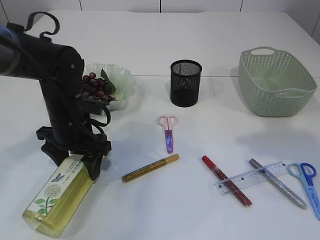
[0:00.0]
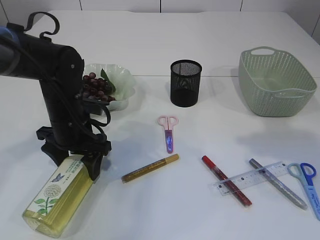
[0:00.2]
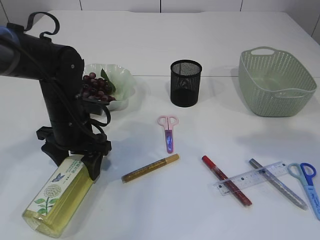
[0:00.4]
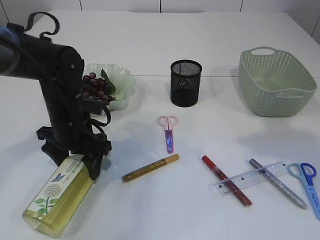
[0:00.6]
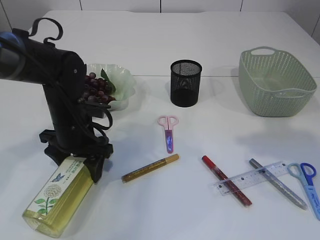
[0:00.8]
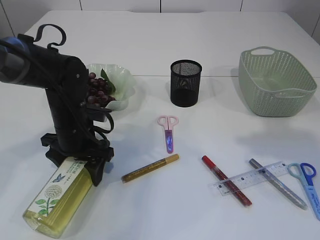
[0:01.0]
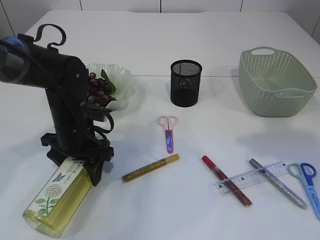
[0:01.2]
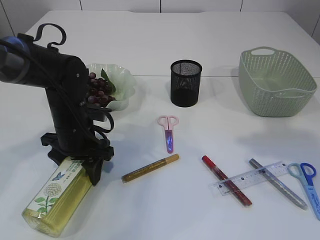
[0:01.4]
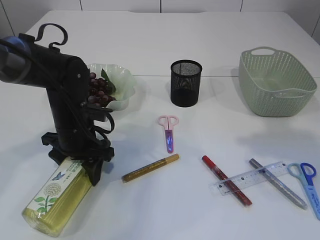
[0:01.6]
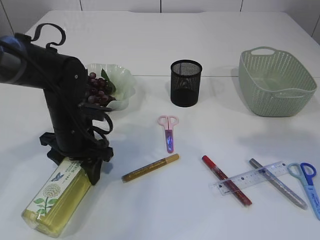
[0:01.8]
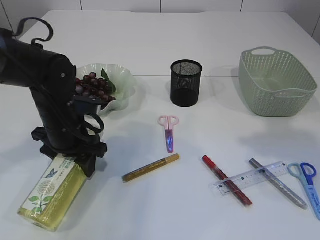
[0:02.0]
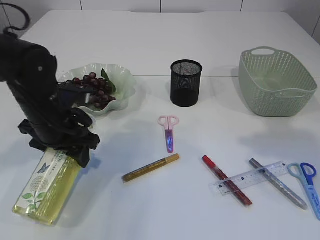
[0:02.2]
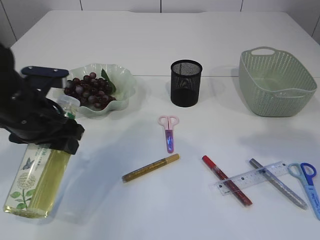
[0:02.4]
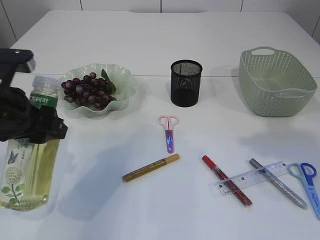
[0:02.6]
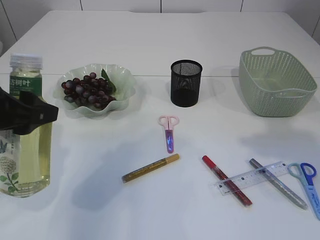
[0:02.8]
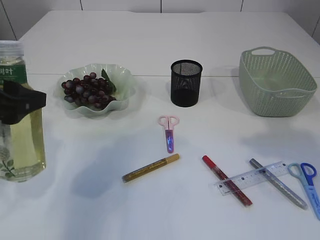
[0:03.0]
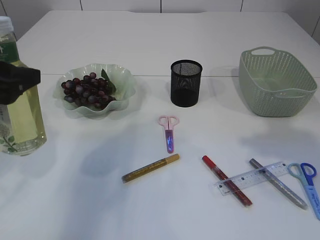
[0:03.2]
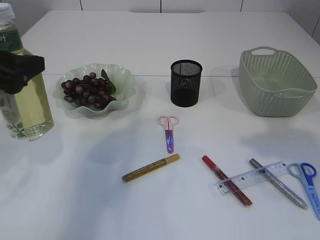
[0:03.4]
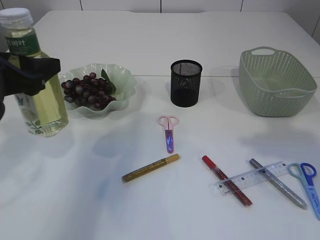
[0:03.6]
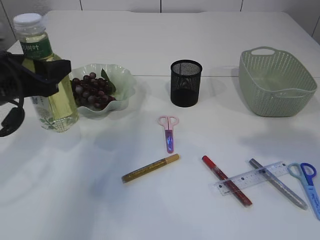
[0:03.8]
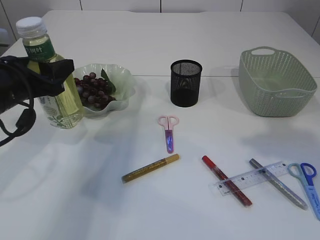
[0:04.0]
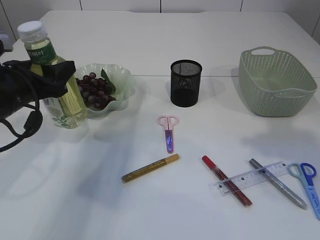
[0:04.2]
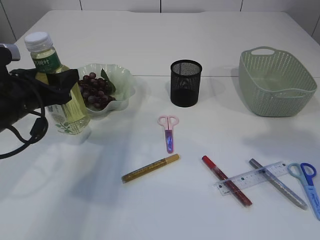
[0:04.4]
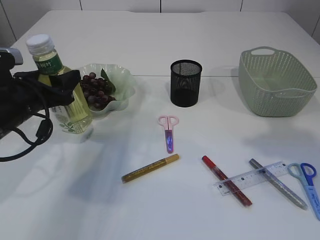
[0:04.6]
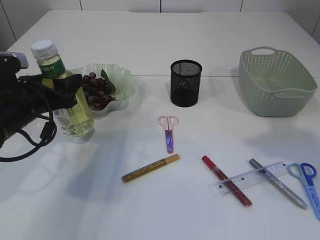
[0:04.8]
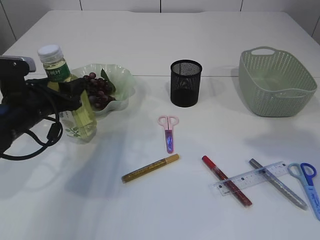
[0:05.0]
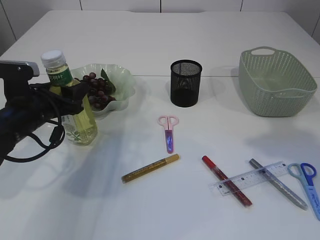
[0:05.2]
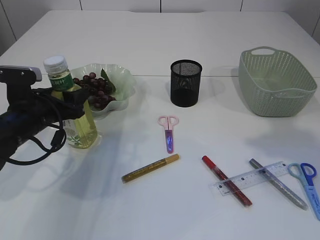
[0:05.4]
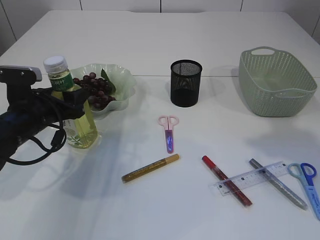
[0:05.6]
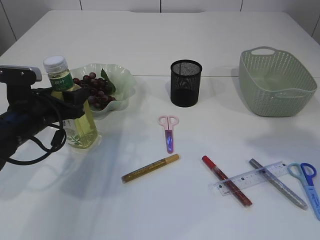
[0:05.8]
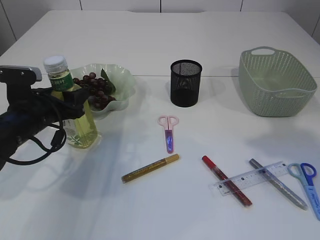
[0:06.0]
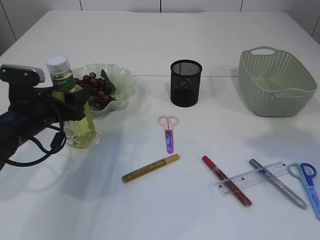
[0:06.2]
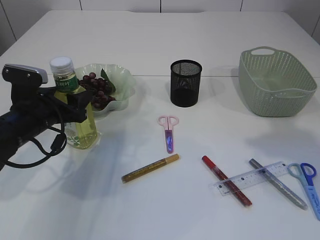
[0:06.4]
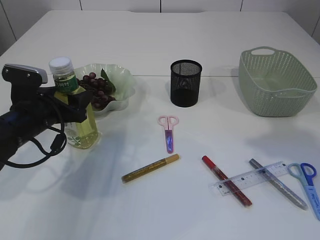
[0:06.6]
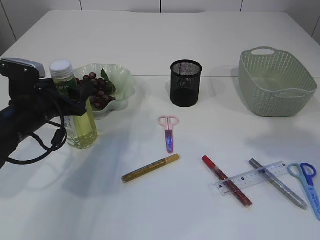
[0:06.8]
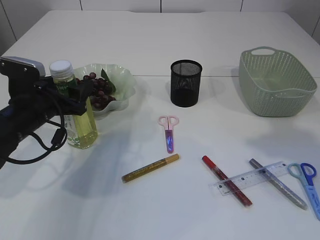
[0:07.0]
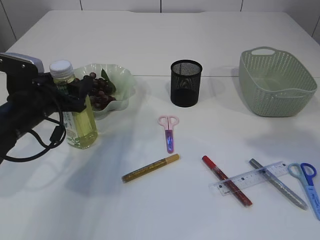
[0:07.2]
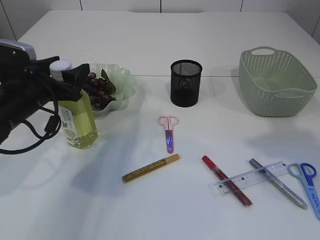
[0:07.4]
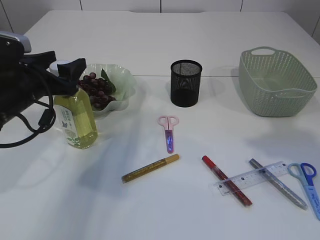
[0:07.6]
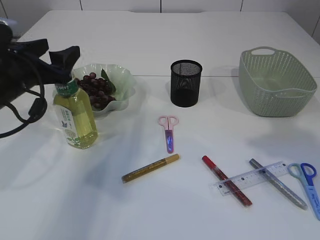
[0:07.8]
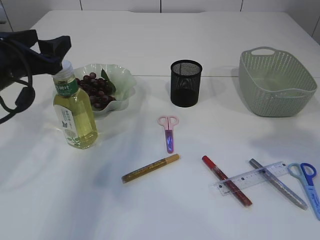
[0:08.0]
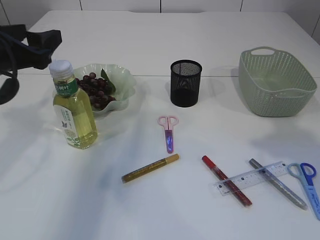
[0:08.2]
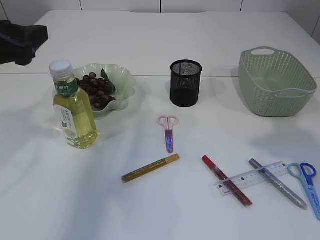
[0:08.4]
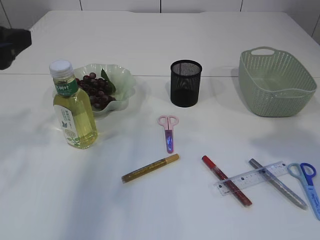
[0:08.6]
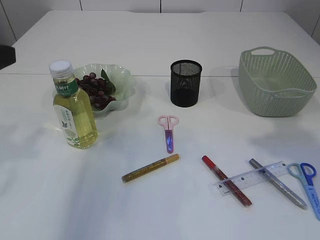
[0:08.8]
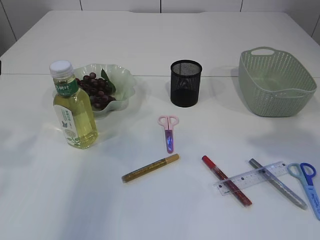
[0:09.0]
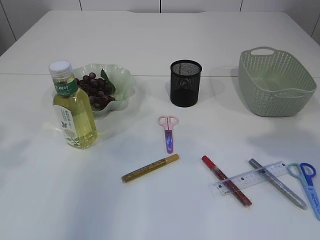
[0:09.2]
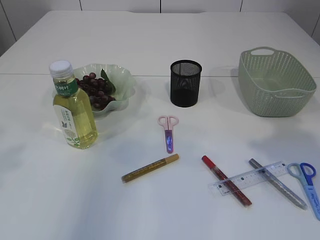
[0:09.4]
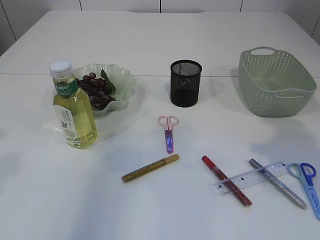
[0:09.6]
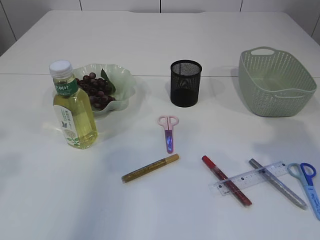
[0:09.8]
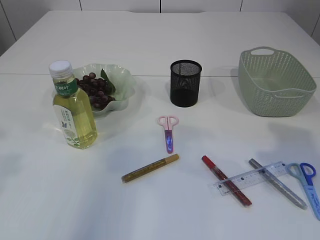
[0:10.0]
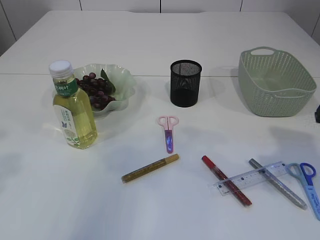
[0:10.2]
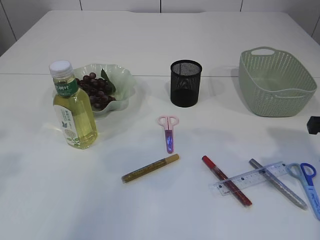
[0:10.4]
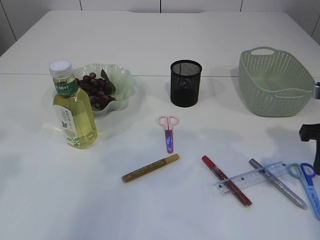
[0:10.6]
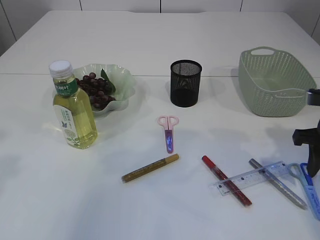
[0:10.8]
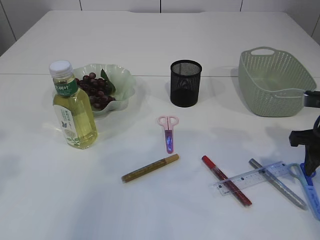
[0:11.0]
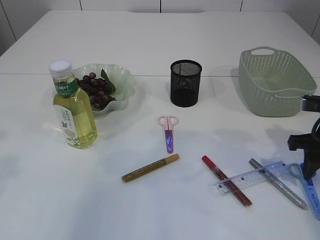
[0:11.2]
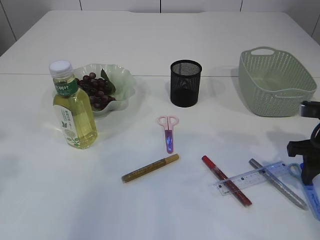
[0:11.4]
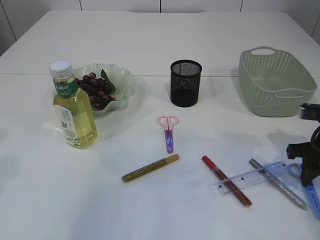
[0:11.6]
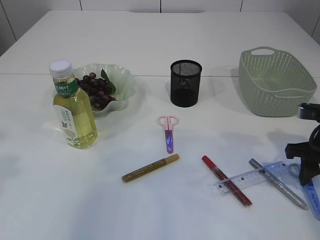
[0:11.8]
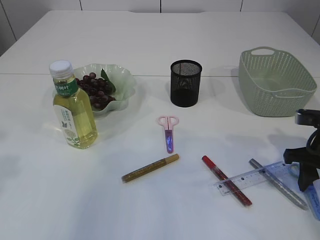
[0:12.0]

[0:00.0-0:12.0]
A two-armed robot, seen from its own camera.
Step, 0:00.0 to 0:02.6: Pick up the bottle with the left arm.
Step, 0:02.8 to 0:08.0: Place the bottle.
0:00.0 to 0:01.6: The grippers make only small movements.
0:01.6 to 0:03.0: The left gripper goes approximately 20 cm upward, backward and to the left.
0:03.0 to 0:04.4: The left gripper is displaced forward and downward by approximately 10 cm.
0:04.4 to 0:06.0: The left gripper goes roughly 5 cm downward.
0:06.0 to 0:07.6: The left gripper travels upward by roughly 5 cm.
0:07.6 to 0:09.0: The left gripper moves upward and backward, roughly 20 cm.
0:09.0 to 0:10.4: The right gripper heads downward, covering about 10 cm.
0:10.4 to 0:12.0: The right gripper is displaced downward by approximately 10 cm.

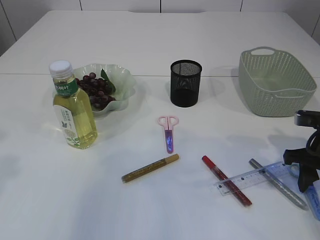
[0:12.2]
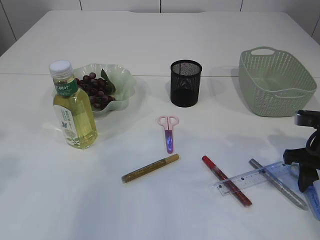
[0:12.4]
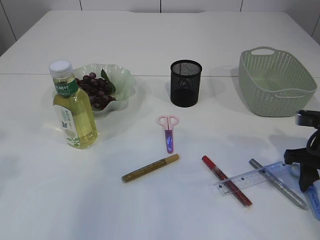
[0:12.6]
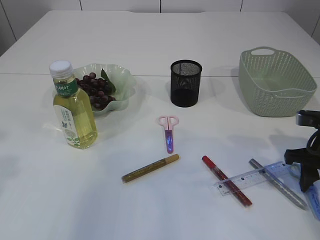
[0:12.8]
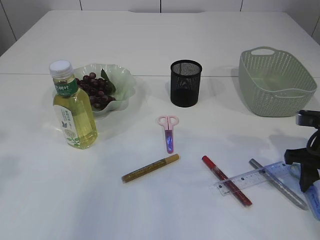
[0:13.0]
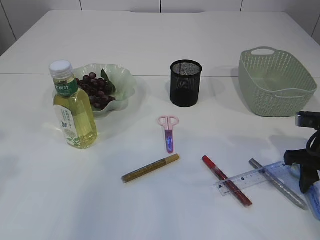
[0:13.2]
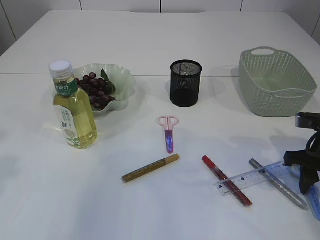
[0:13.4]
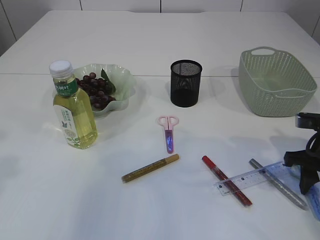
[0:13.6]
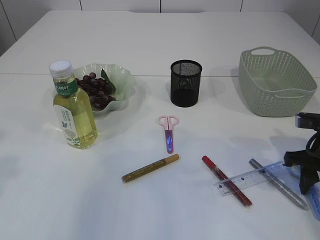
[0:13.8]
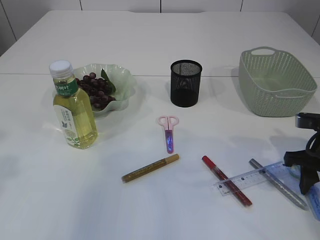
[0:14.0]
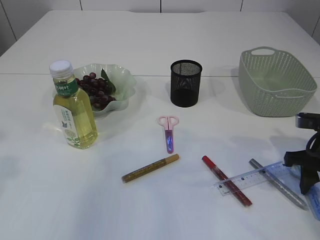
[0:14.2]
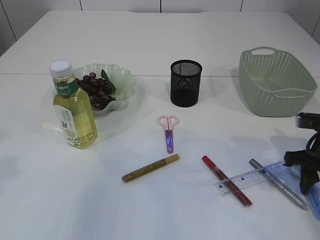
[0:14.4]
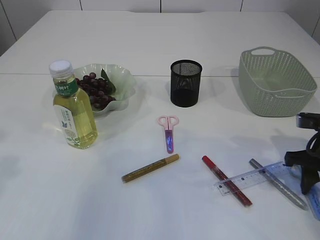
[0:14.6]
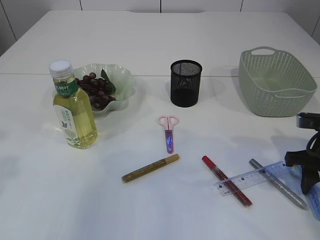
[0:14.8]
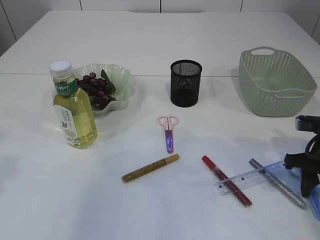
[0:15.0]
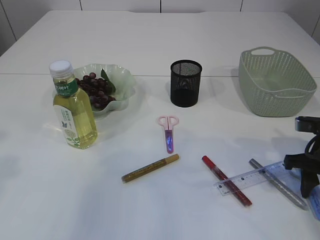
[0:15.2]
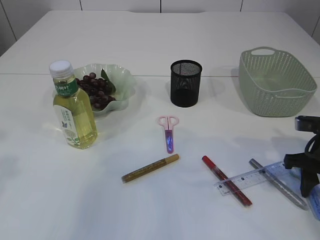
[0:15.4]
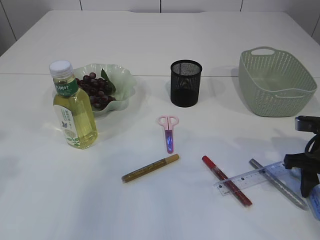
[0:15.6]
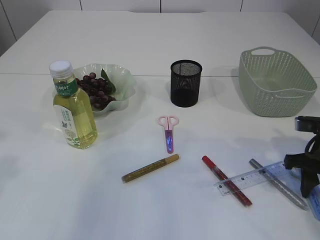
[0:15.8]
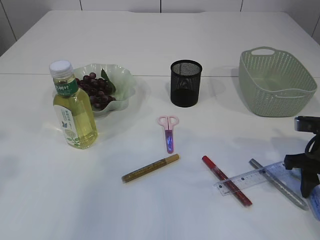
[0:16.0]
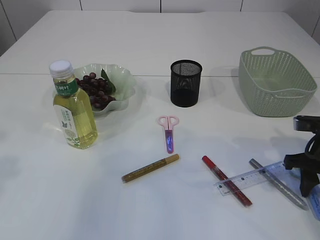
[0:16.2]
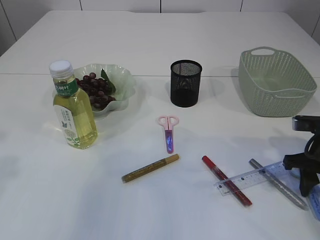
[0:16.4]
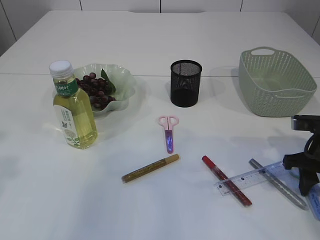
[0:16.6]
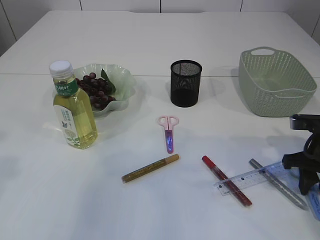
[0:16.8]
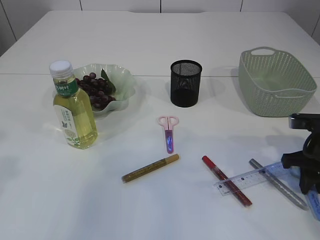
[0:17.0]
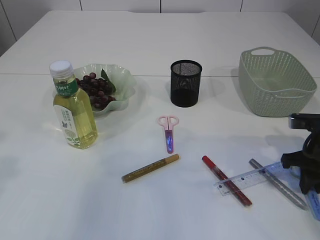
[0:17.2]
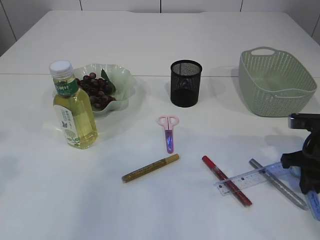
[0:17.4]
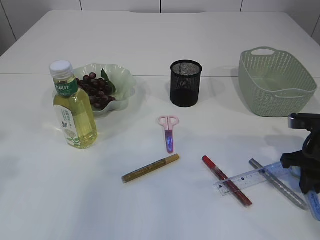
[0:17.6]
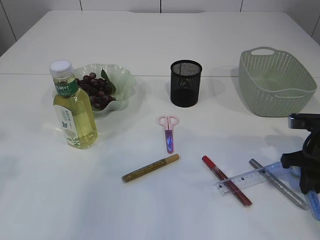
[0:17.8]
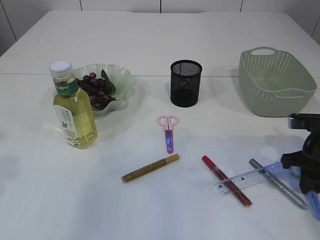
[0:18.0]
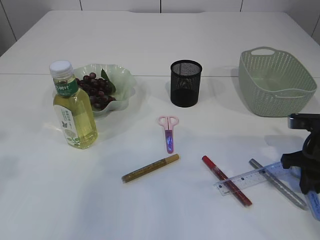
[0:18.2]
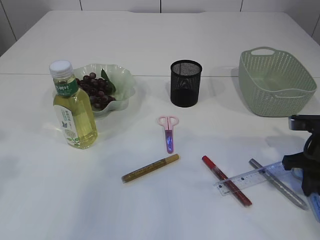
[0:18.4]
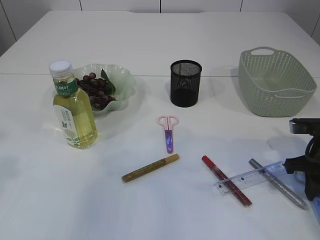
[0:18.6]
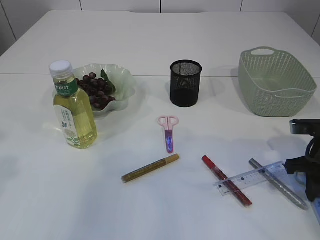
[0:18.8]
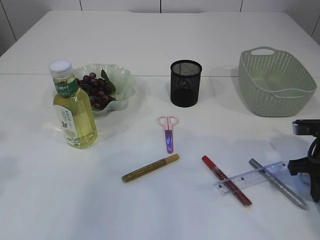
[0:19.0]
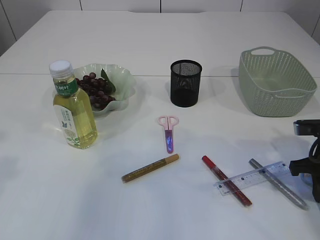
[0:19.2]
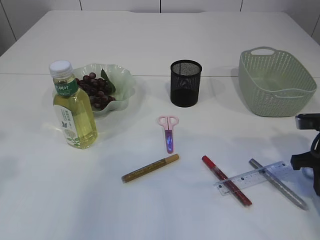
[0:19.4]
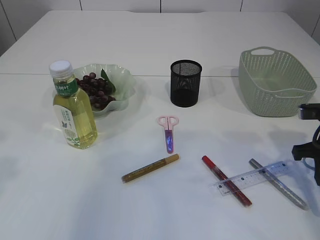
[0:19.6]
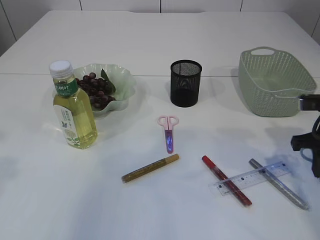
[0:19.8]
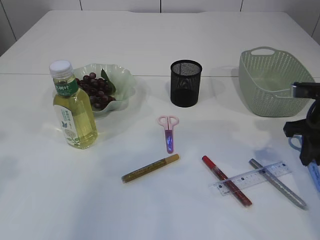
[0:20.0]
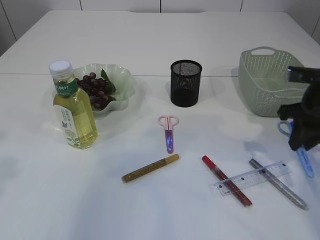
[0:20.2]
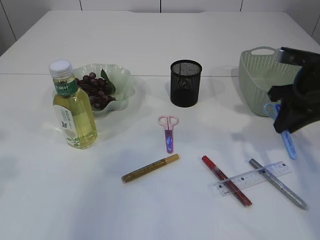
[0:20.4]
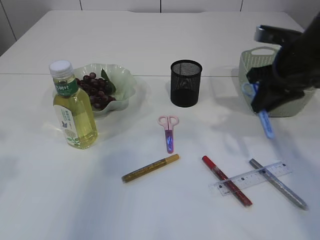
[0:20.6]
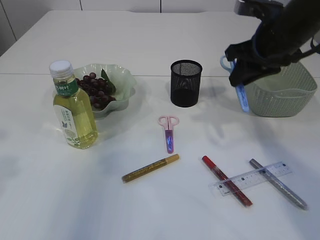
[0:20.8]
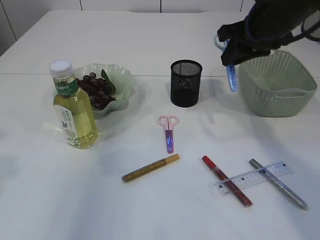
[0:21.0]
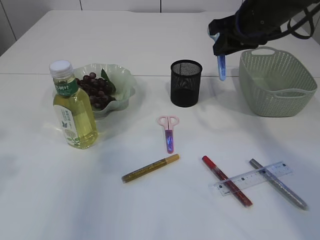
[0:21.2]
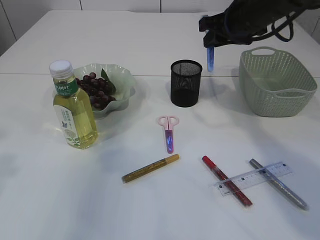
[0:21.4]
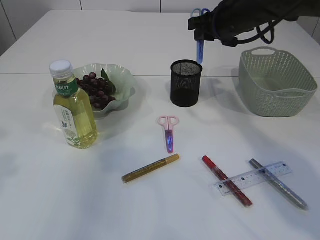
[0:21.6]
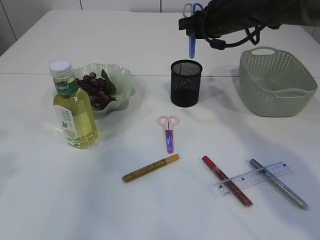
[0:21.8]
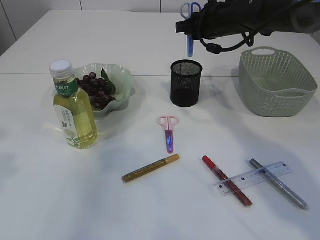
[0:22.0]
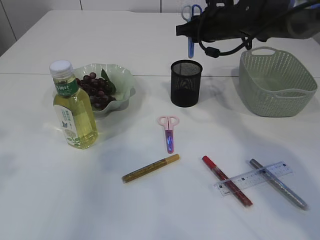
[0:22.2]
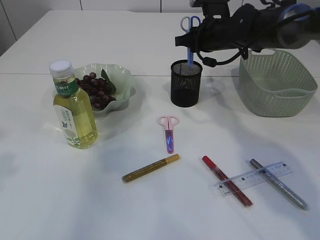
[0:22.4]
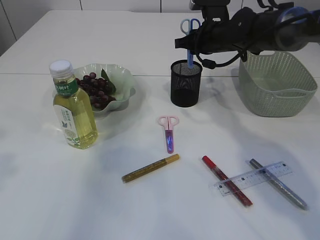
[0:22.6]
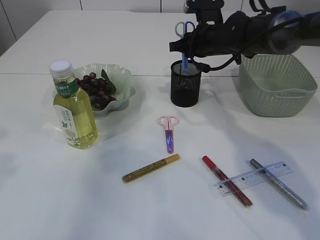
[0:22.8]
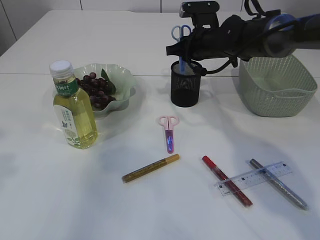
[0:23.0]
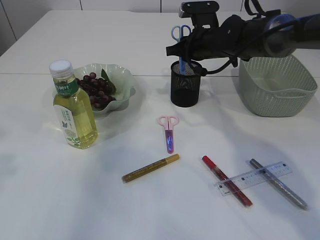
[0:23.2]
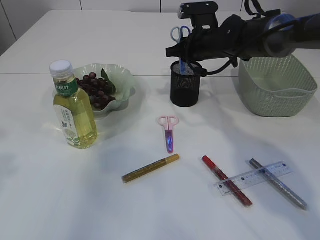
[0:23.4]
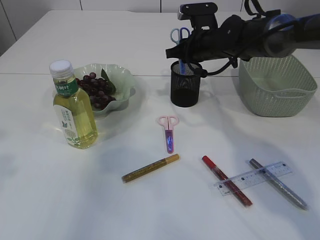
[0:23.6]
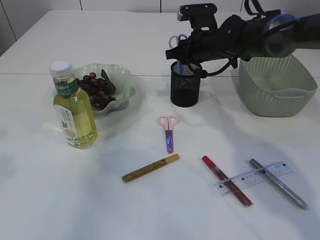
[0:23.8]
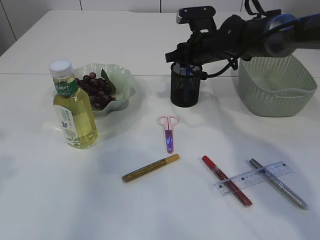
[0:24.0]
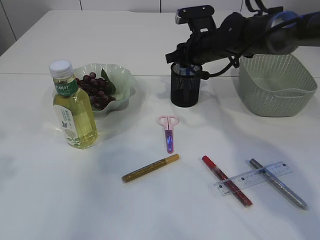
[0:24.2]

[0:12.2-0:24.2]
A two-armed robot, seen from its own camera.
Step, 0:12.2 to 0:20.4: pick up the blue scissors.
0:12.2 to 0:16.6: Neither gripper changes place.
0:16.6 to 0:18.2: The right gripper closes its fingers.
0:18.2 to 0:19.8: There are only small adjustments of the grippers.
0:19.8 to 0:21.2: The right gripper travels upward, to the left and forward by approximately 20 cm.
0:21.2 to 0:22.6: The right gripper travels forward and downward by about 10 cm.
0:22.6 to 0:24.2: The grippers stay close to where they were, moving slightly.
